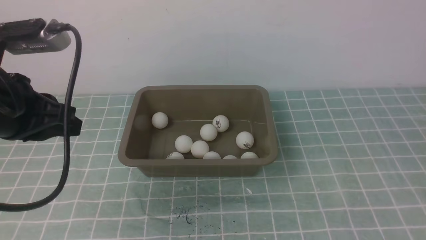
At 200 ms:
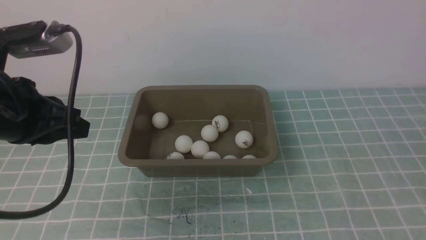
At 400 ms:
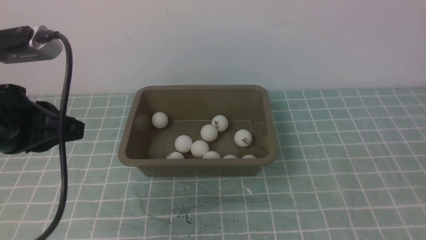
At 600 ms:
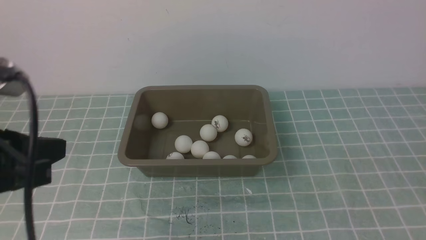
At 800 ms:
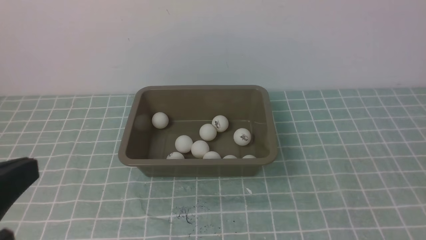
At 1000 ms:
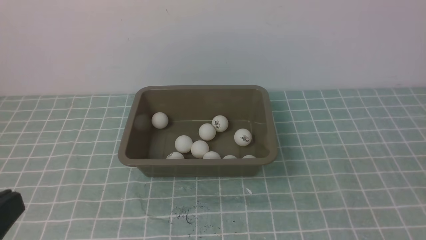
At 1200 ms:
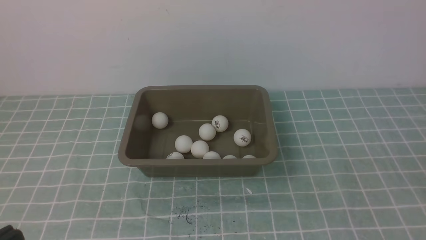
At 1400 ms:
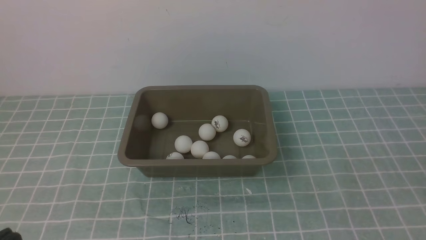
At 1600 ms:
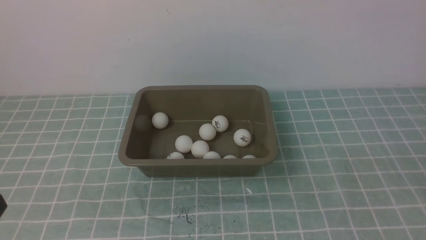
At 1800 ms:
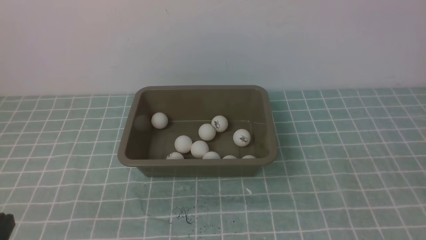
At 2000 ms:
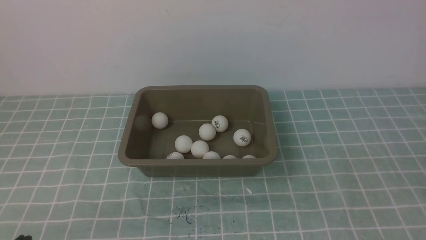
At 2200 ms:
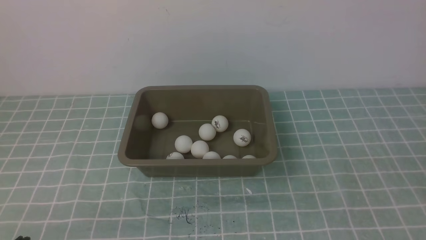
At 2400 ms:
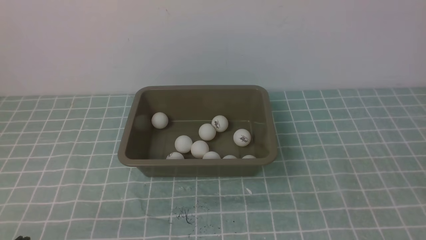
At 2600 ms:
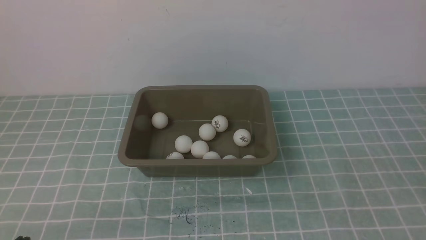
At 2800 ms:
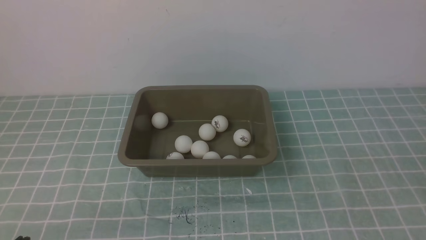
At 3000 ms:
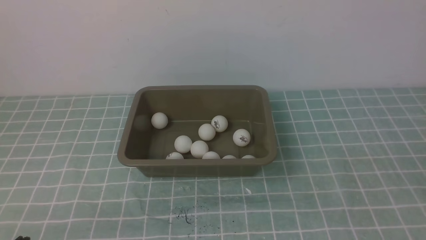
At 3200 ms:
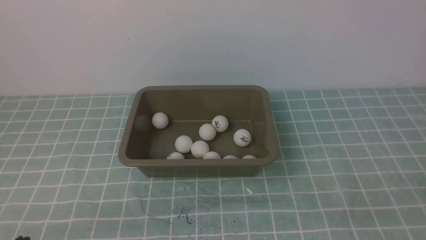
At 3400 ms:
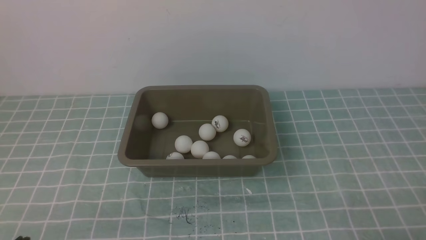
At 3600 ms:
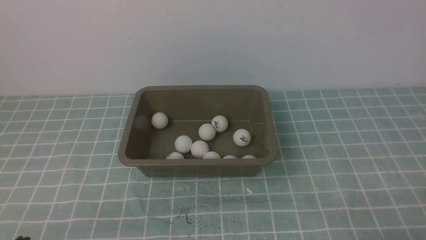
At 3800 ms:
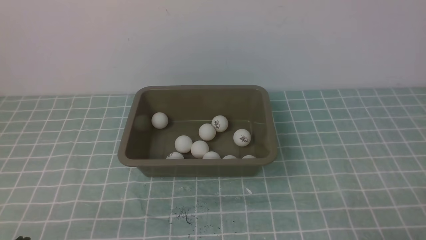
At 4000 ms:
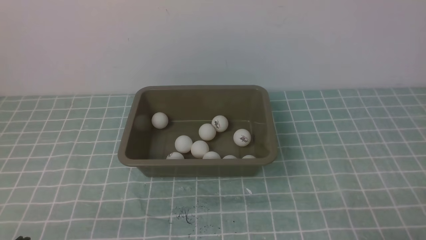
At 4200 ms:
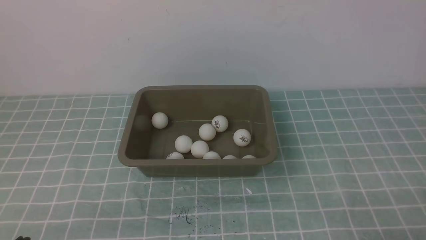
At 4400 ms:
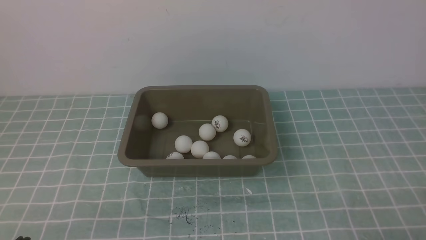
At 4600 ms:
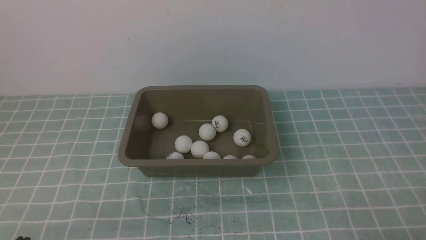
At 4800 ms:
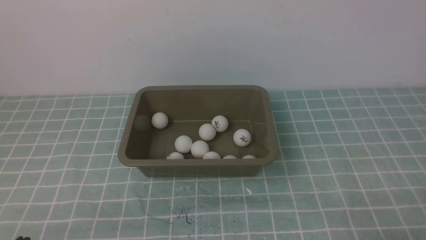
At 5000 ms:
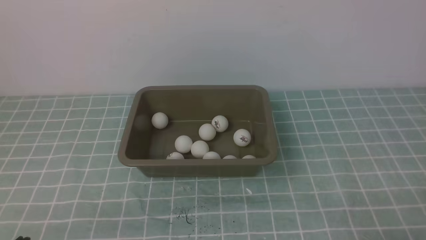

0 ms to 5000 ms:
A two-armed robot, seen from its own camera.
0 ms to 1600 ms: The left gripper shifts roughly 20 cm backward.
